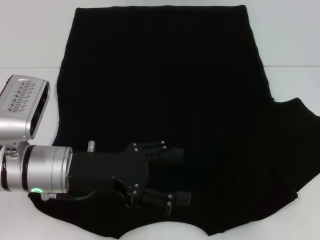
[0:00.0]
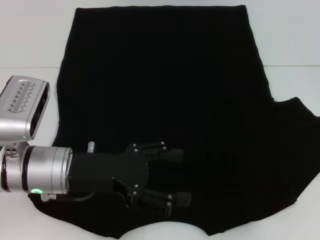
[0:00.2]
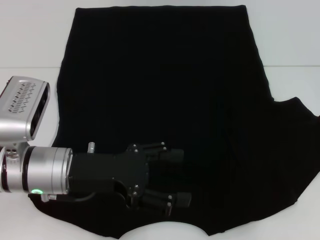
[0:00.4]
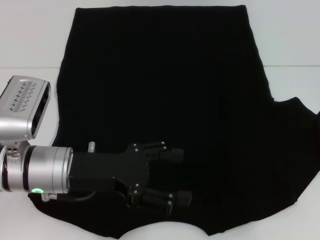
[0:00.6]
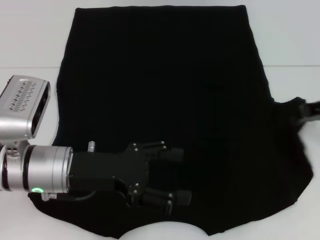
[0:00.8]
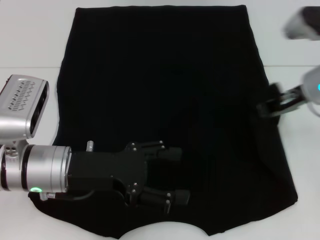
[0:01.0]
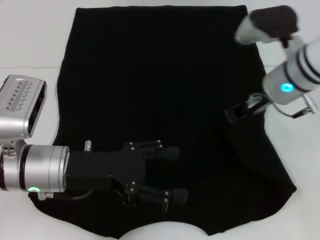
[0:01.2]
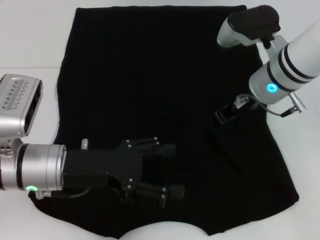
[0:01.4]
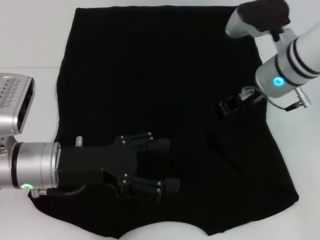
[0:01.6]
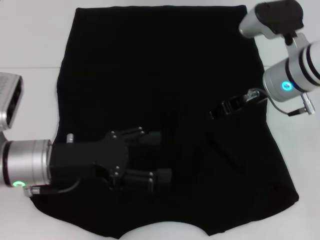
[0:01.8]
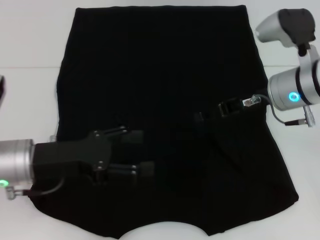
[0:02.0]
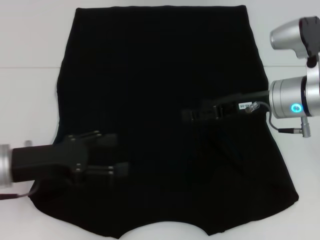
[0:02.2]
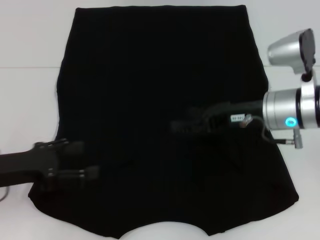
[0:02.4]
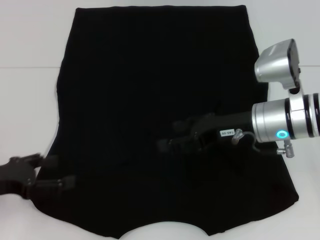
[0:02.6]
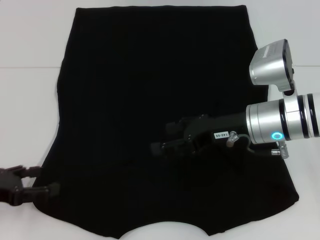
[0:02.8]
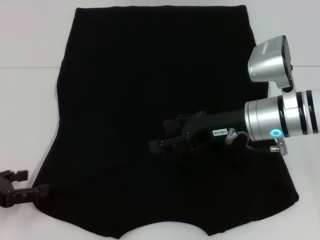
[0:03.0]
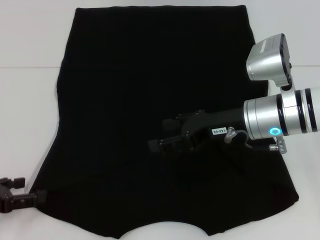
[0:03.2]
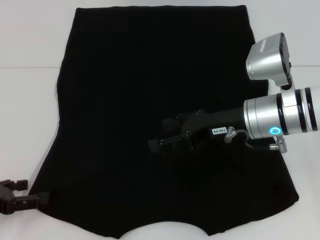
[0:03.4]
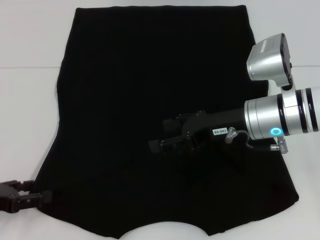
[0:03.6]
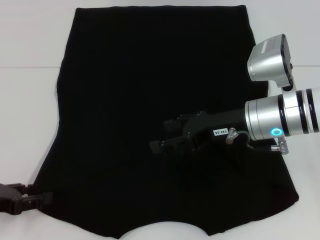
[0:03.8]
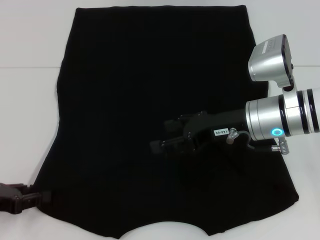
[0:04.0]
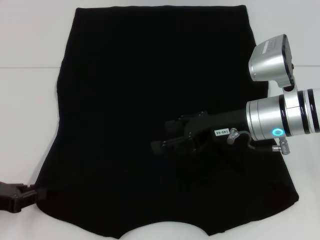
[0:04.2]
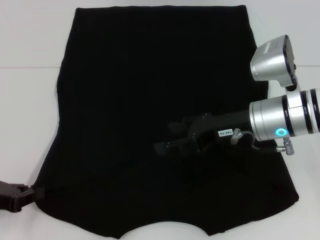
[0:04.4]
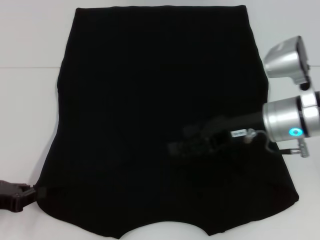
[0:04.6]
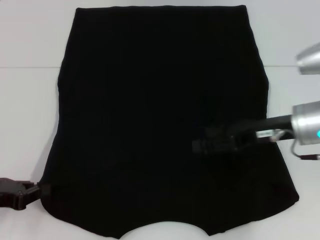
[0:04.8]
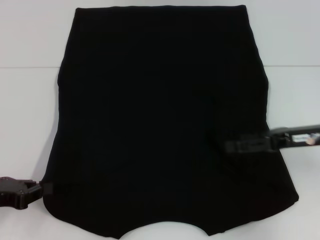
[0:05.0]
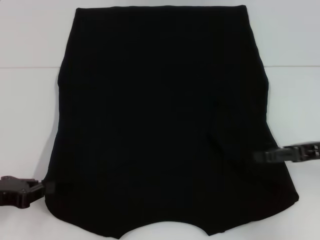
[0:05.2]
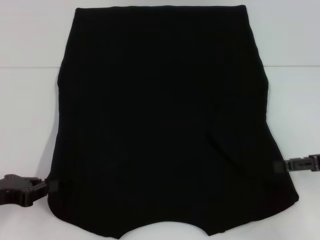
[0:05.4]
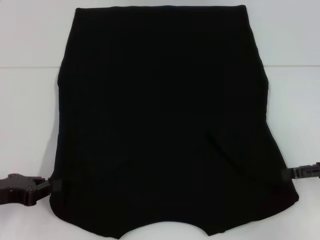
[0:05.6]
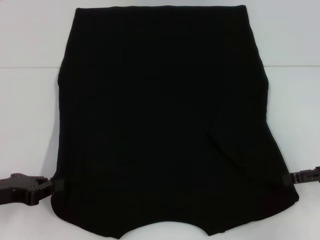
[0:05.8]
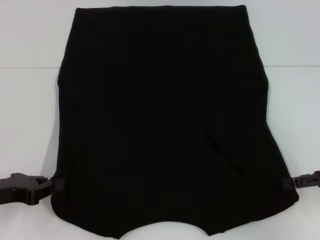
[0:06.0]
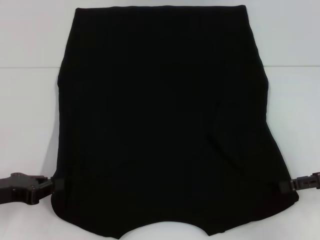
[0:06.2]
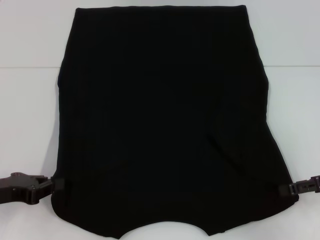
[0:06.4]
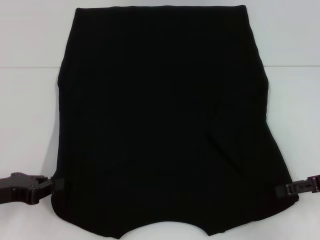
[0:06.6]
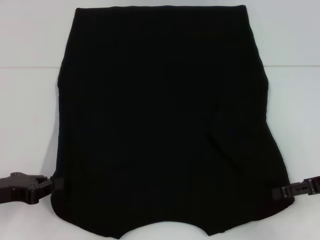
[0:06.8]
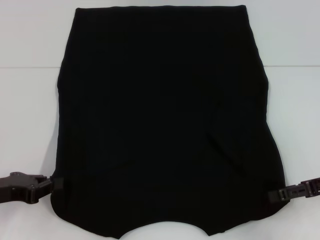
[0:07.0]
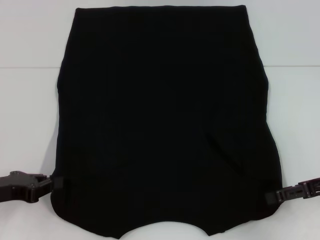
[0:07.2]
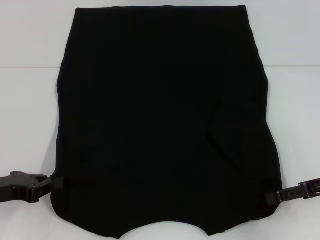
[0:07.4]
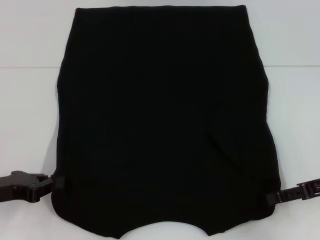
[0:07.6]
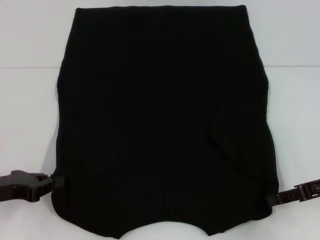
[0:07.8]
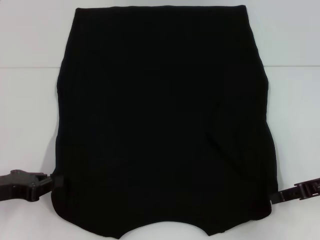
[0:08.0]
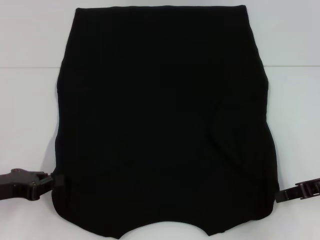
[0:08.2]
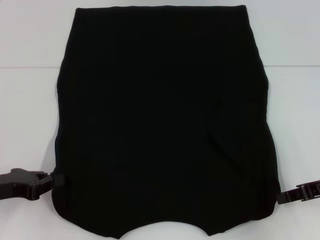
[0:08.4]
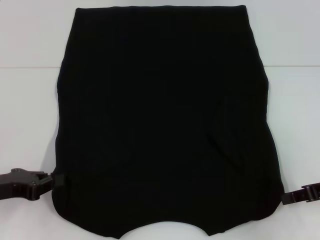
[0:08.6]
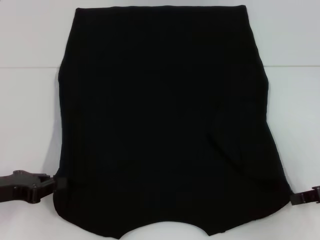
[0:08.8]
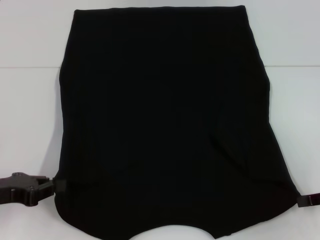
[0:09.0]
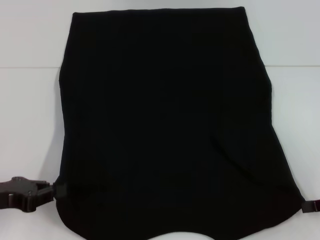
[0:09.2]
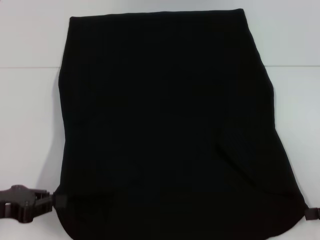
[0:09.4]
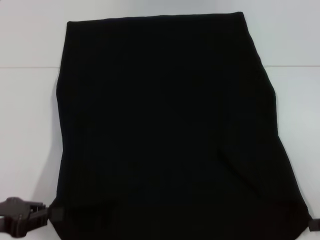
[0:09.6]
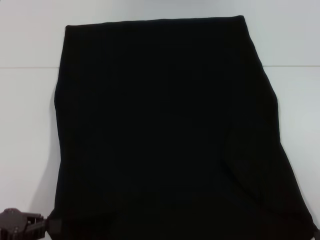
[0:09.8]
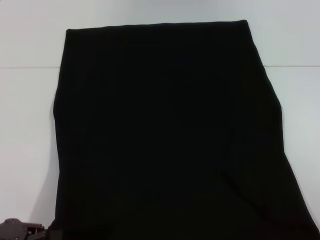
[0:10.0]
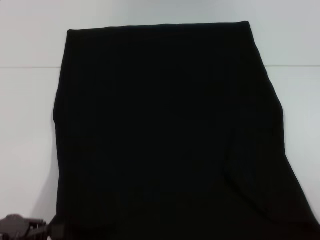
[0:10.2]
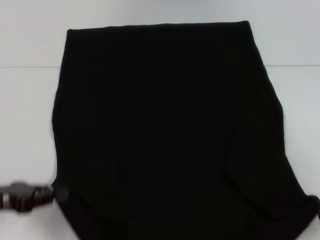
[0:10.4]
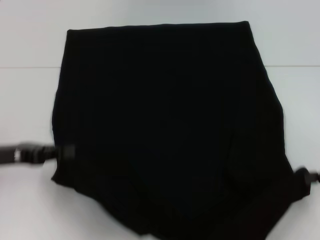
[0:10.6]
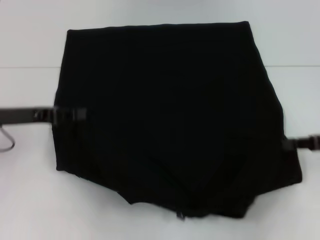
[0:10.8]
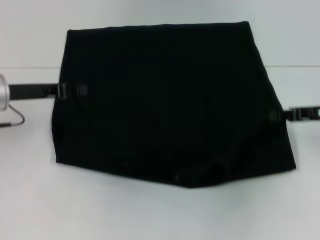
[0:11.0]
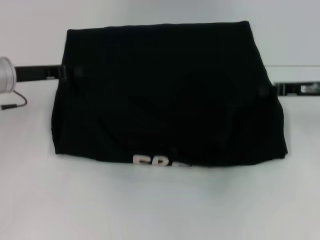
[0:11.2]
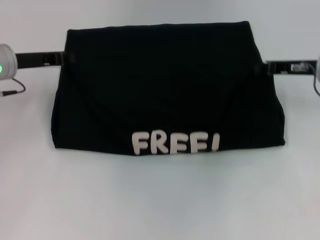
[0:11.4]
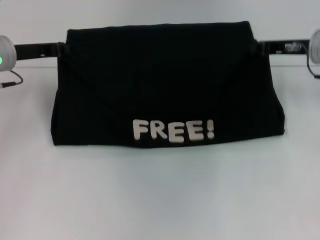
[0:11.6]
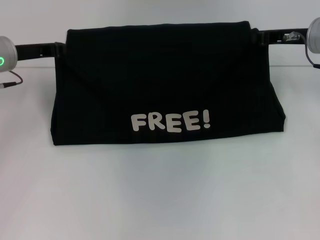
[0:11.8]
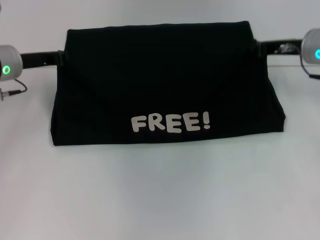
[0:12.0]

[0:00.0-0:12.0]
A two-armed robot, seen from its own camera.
Step, 0:02.0 to 0:05.0: Grab the bottom left corner with your left hand.
Step, 0:05.2 to 0:07.8: Grab the bottom right corner with your right hand.
0:00.0 to 0:01.6: The right gripper travels to the left by approximately 20 cm.
0:01.6 to 0:03.0: The right gripper is displaced backward by roughly 5 cm, and opens; the left gripper shifts approximately 15 cm to the left.
0:03.0 to 0:04.4: The left gripper closes its fingers.
0:04.4 to 0:06.0: The right gripper travels to the right by some 20 cm.
0:06.0 to 0:07.6: The grippers move only a little.
0:07.6 to 0:09.0: The right gripper closes.
0:09.0 to 0:10.4: The right gripper goes roughly 5 cm backward.
0:10.4 to 0:12.0: The left gripper travels forward by some 20 cm. Meanwhile the right gripper goes some 25 cm forward and to the left.

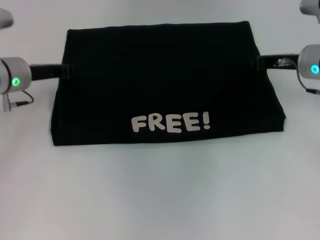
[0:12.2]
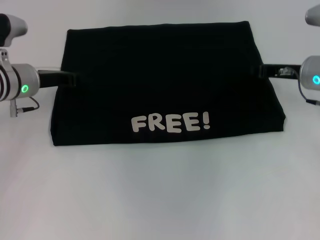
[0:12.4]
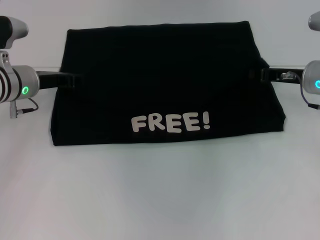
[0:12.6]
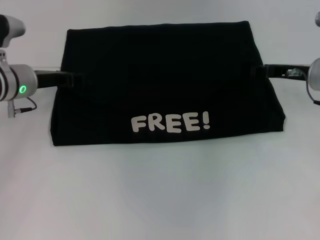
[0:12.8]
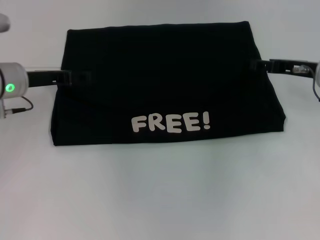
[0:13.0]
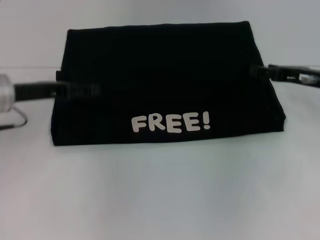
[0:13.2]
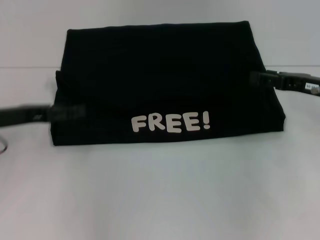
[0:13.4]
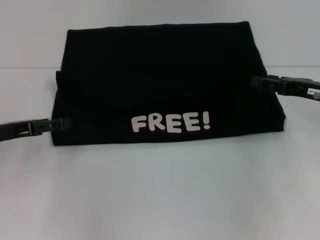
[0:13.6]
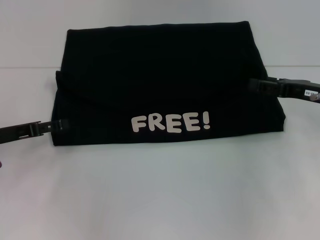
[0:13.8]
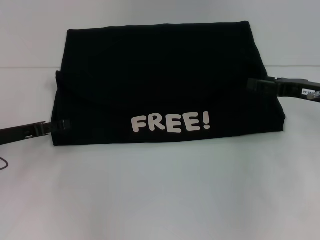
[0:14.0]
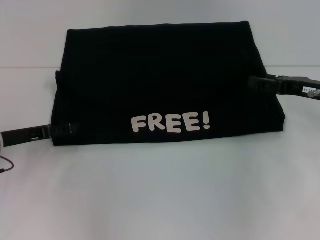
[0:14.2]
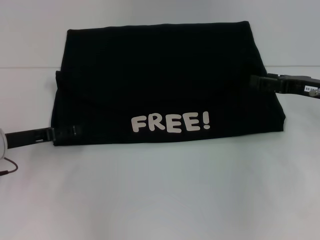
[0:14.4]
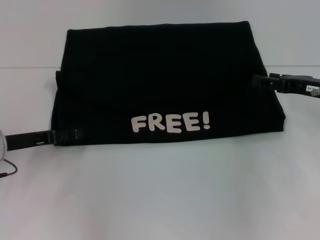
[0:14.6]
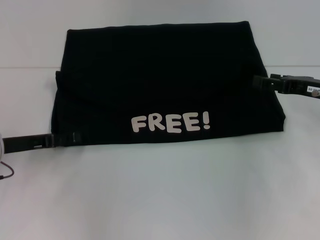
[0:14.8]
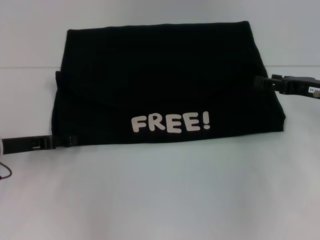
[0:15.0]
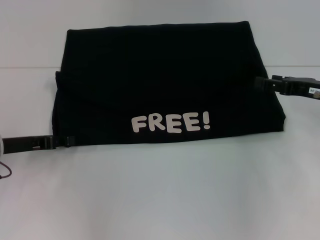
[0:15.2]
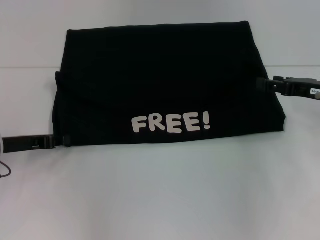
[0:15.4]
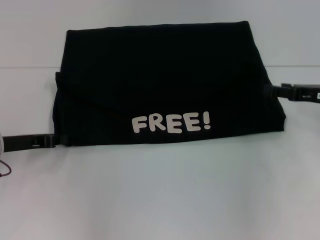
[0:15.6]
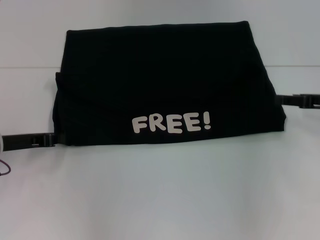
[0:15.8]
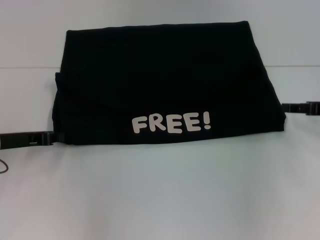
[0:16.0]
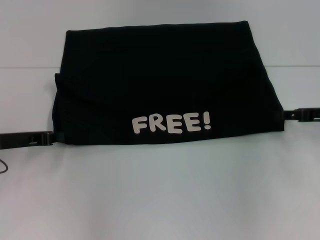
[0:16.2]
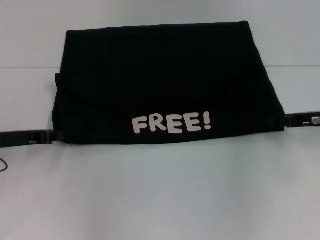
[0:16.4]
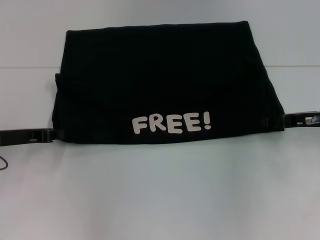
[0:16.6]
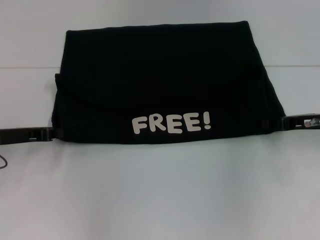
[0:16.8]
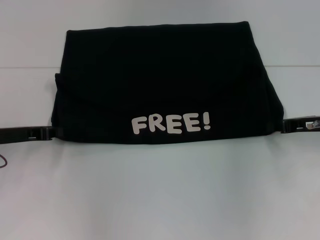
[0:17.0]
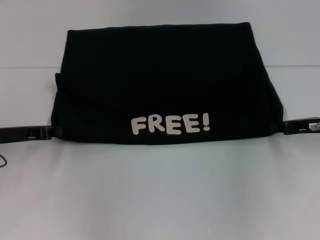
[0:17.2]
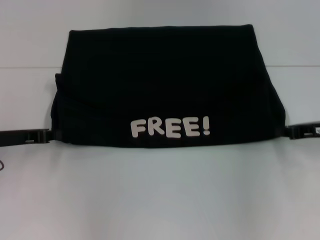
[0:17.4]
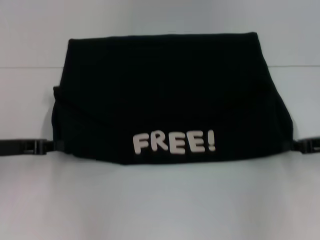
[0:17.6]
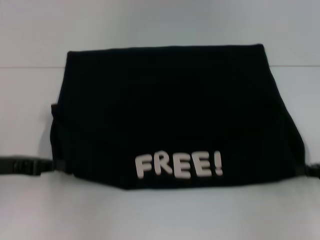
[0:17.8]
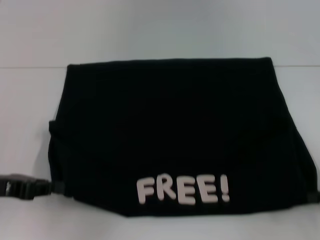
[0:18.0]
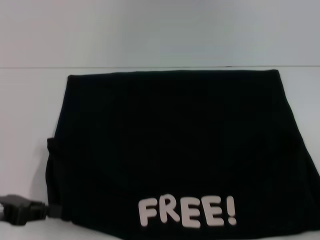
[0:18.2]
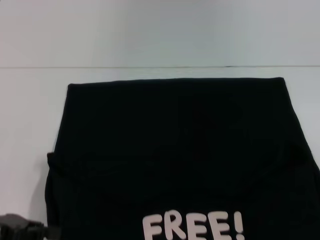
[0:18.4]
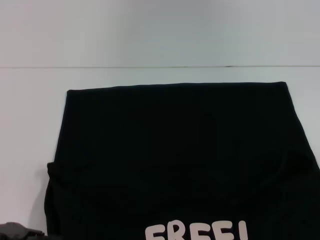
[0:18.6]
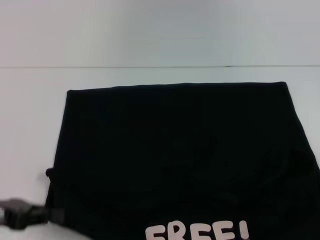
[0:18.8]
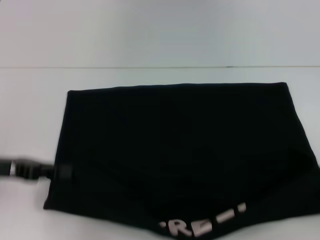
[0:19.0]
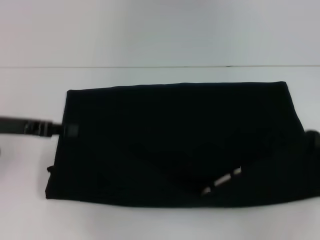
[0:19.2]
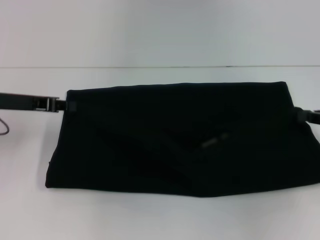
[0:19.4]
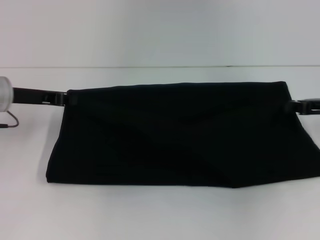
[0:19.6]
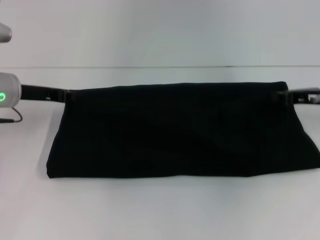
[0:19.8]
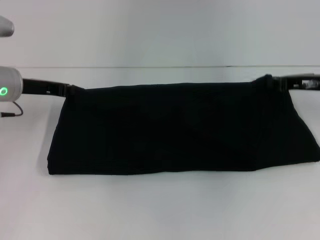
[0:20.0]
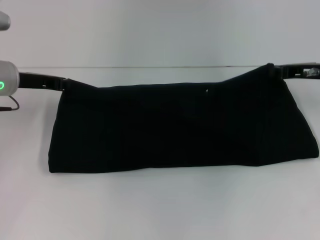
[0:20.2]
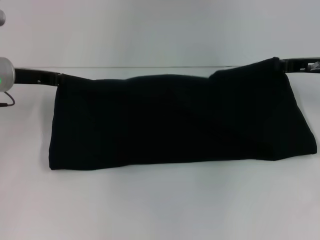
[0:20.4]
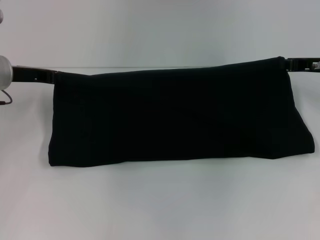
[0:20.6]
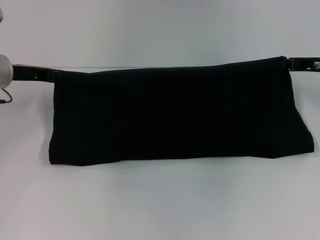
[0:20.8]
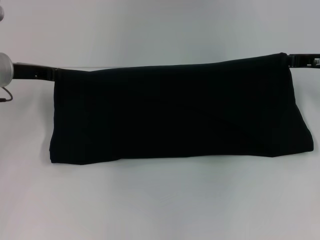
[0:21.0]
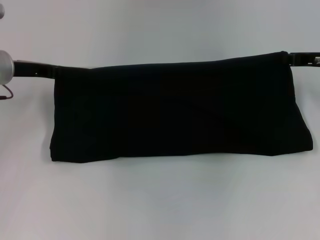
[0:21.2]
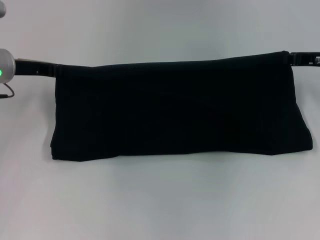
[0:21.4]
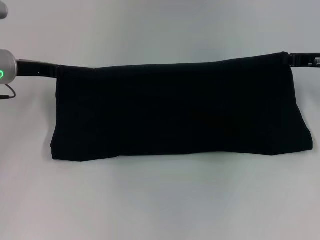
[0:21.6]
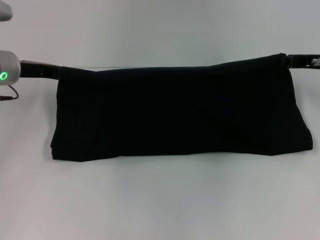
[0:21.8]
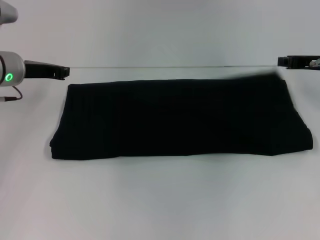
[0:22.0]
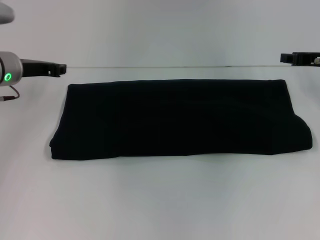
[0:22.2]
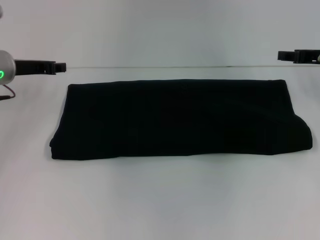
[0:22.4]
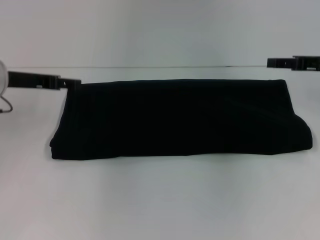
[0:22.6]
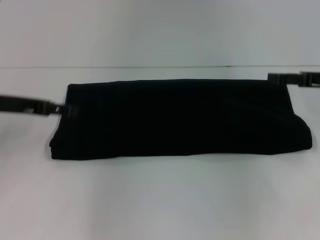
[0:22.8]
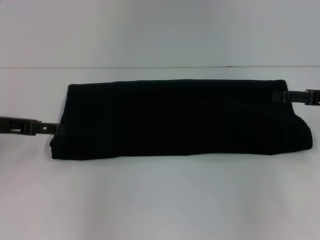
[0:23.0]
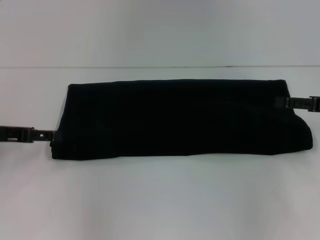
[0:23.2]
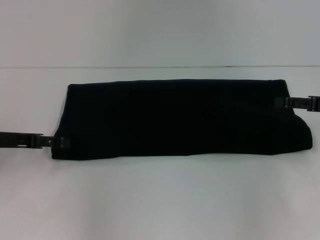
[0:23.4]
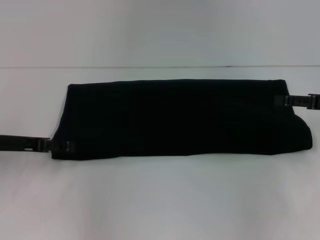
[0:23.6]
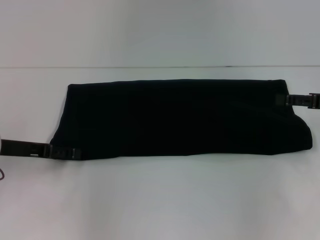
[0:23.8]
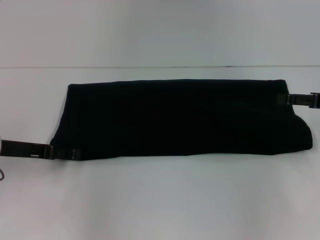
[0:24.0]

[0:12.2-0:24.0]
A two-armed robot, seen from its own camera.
Step, 0:13.0 to 0:18.4: Pull the clothes with your left hand.
Step, 0:13.0 to 0:18.4: Pull the clothes with your right hand.
Step, 0:18.6 to 0:22.6: Fold the clothes with your right hand.
0:12.2 to 0:13.6: The right gripper travels backward and to the right by roughly 10 cm, and opens up. The left gripper shifts roughly 15 cm backward and to the left, and opens.
0:13.6 to 0:15.2: The grippers make only small movements.
0:15.2 to 0:16.6: The left gripper closes.
0:16.6 to 0:18.2: The right gripper shifts about 20 cm backward and to the right, and closes; the left gripper travels backward by roughly 10 cm.
0:18.2 to 0:19.6: The two grippers go about 15 cm forward.
0:19.6 to 0:21.0: The right gripper goes approximately 5 cm forward.
0:21.0 to 0:22.6: The left gripper opens up. The right gripper opens its fingers.
0:22.6 to 0:24.0: The left gripper heads backward and downward, covering roughly 10 cm, and opens. The right gripper moves backward, roughly 5 cm, and opens its fingers.
